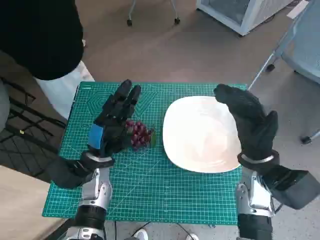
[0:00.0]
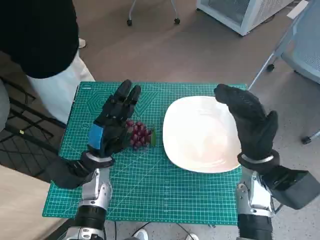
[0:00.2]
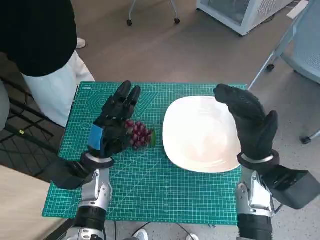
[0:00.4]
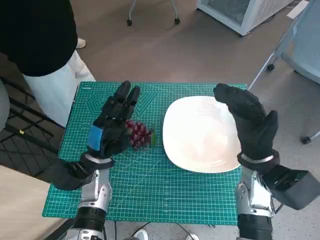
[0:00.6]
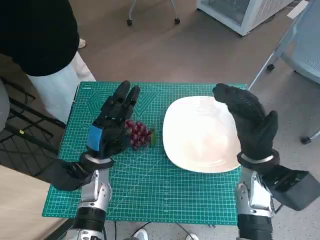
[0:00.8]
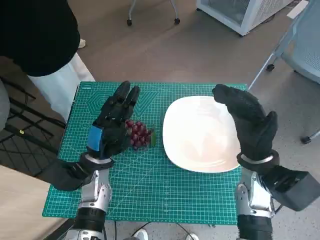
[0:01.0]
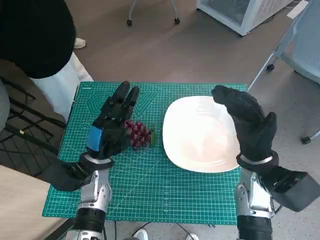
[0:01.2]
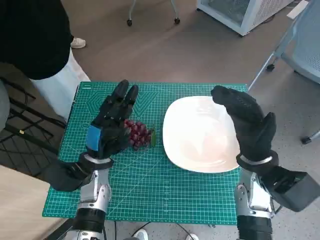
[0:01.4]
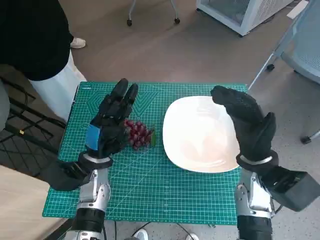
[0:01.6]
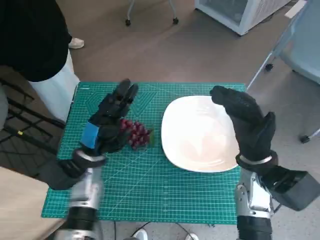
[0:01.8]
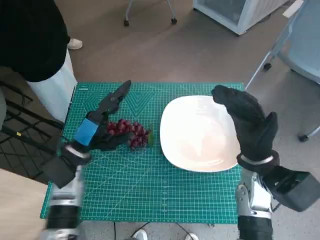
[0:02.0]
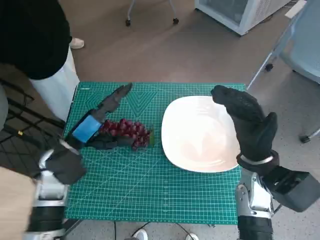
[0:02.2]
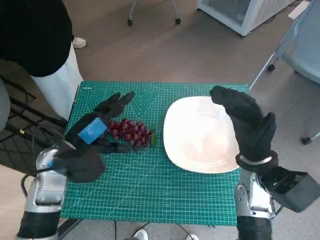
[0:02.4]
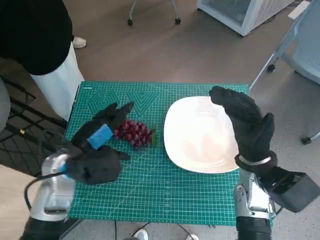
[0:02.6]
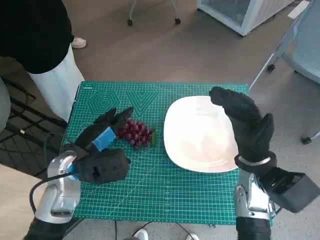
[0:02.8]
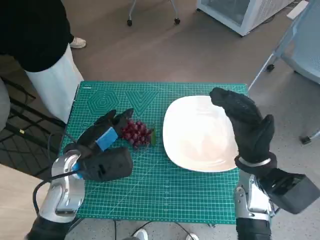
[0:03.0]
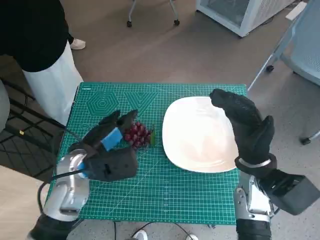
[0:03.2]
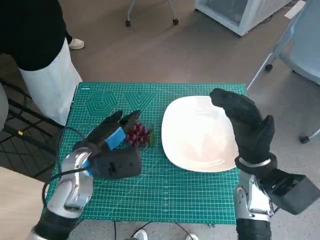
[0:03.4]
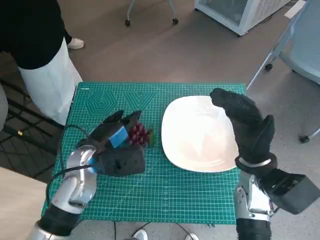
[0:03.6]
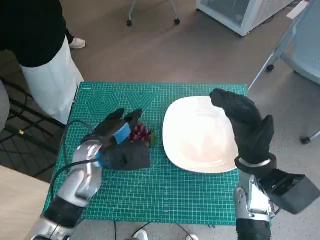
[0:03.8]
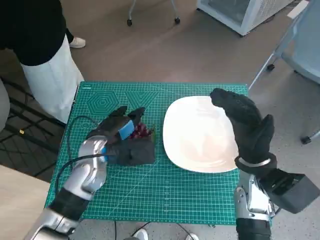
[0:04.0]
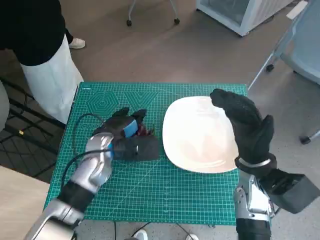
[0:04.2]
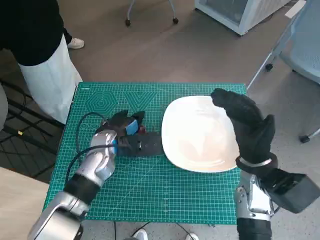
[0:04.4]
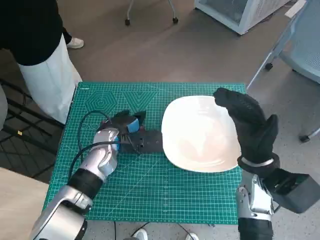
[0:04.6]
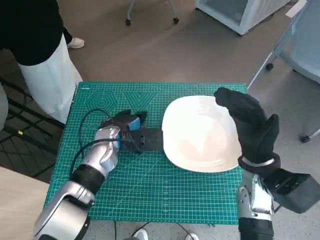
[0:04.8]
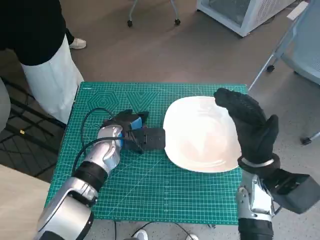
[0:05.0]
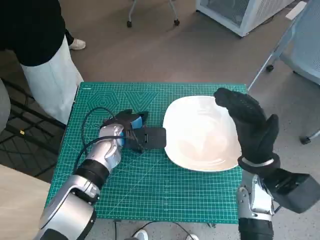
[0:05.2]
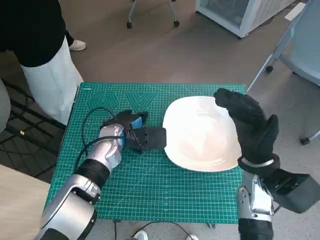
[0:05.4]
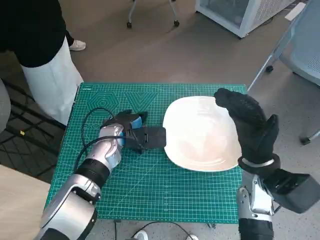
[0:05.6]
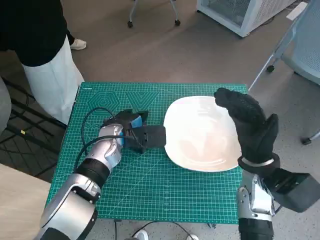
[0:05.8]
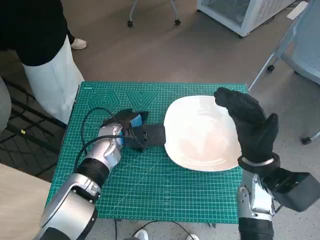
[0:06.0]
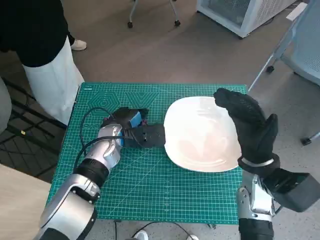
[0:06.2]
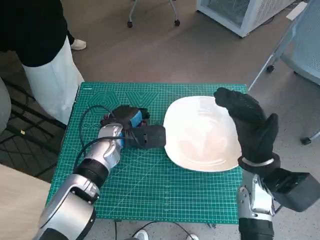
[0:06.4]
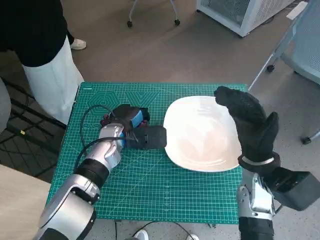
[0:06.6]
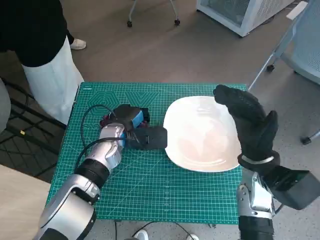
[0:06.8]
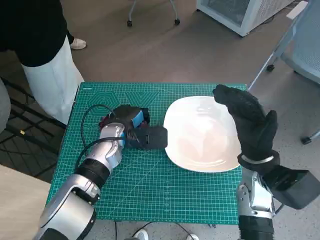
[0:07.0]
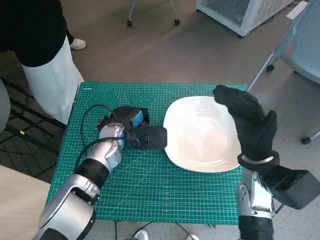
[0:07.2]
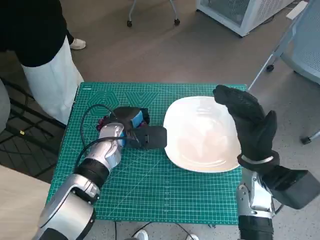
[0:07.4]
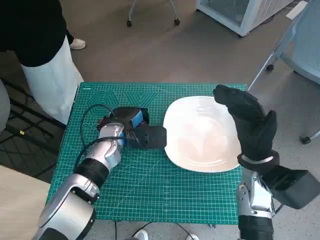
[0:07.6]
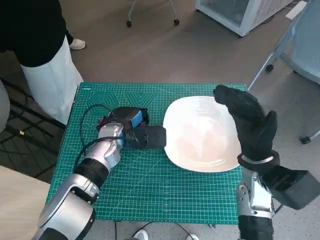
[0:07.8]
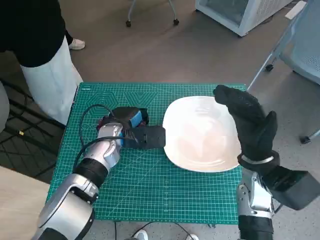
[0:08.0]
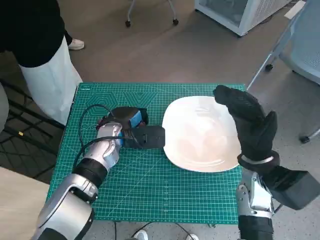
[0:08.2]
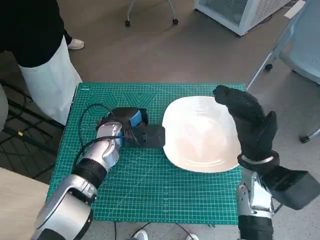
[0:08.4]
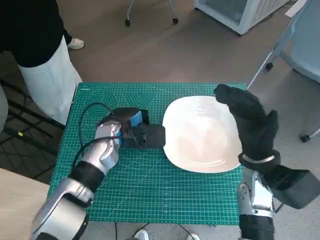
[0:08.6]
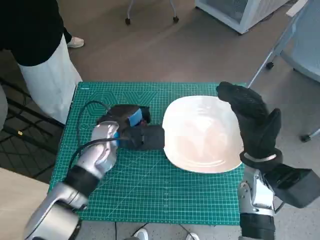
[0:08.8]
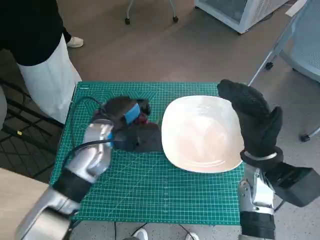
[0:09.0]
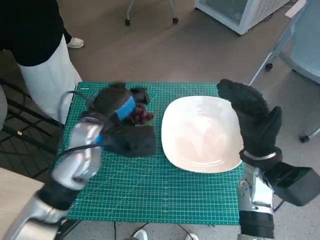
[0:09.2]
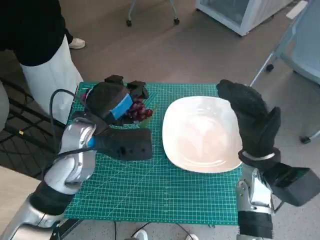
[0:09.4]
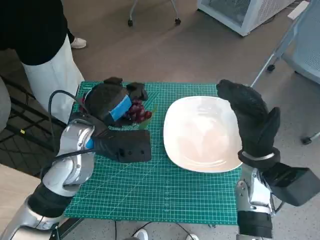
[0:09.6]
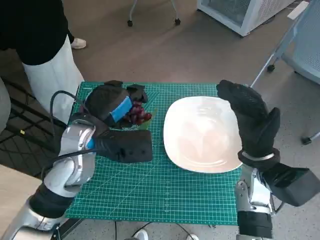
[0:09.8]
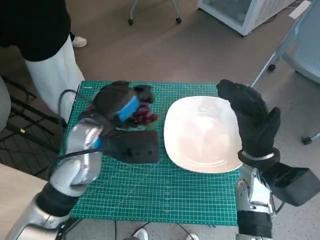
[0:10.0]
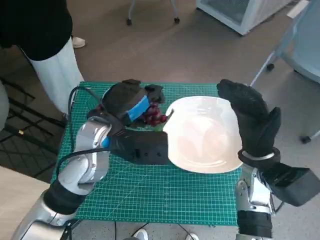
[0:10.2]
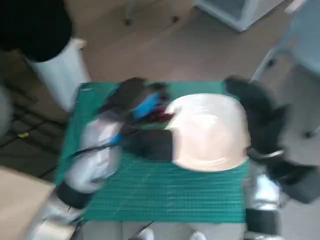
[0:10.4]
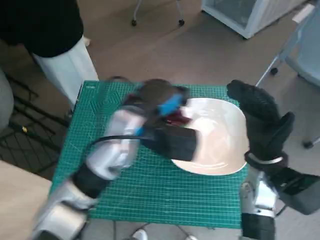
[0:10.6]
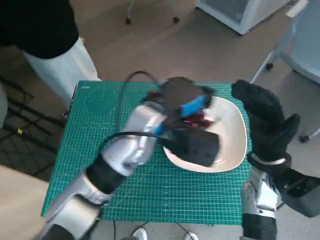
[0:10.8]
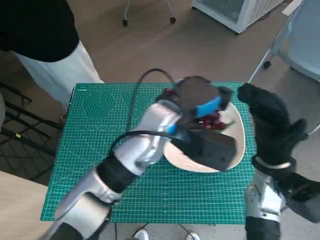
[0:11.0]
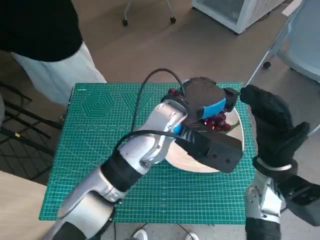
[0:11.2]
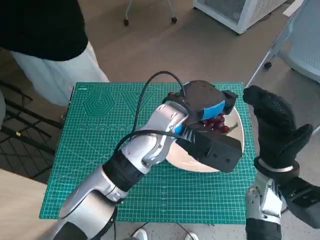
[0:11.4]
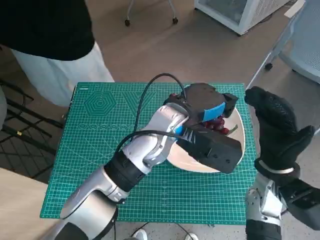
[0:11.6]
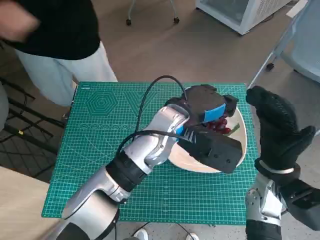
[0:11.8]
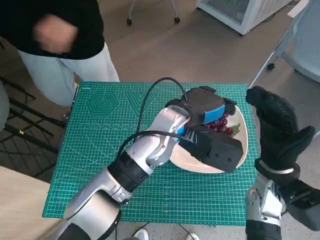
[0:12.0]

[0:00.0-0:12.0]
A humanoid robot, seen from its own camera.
Task of the whole recording: Pick up the grapes and put them on the plate.
Step, 0:00.0 to 0:07.2: Grasp the grapes with left hand.
0:01.6 to 0:03.0: The left hand moves upward, about 5 cm.
0:03.0 to 0:04.4: The left hand is displaced forward by some 5 cm.
0:04.4 to 0:09.0: There are only small adjustments of the hands.
0:09.0 to 0:10.4: The left hand shifts about 5 cm upward.
0:10.4 to 0:12.0: The left hand shifts roughly 10 cm to the right.

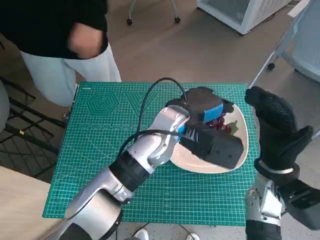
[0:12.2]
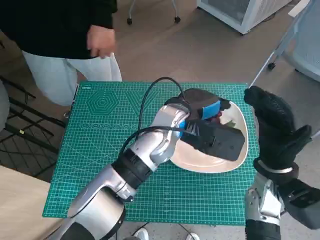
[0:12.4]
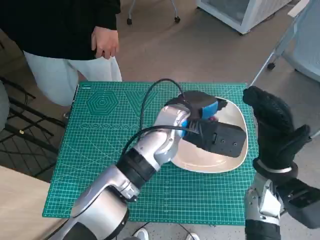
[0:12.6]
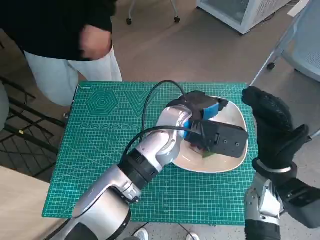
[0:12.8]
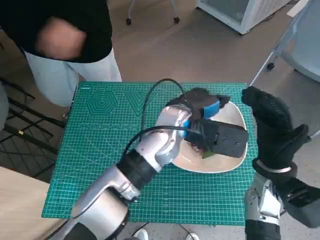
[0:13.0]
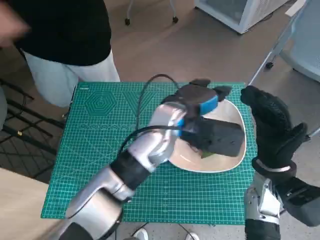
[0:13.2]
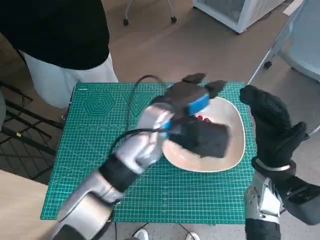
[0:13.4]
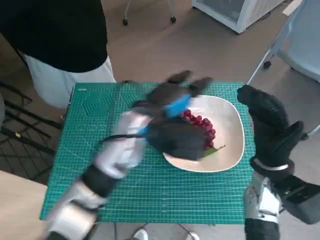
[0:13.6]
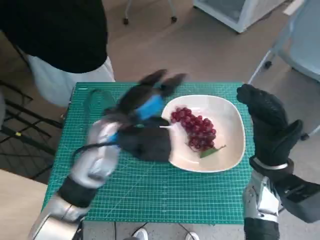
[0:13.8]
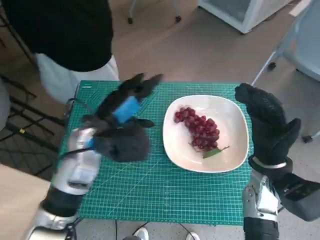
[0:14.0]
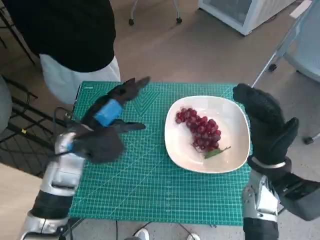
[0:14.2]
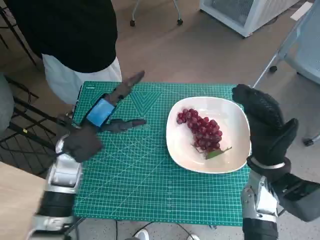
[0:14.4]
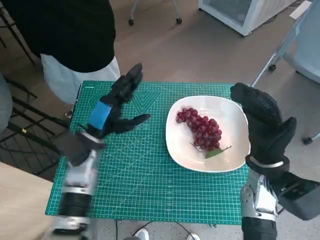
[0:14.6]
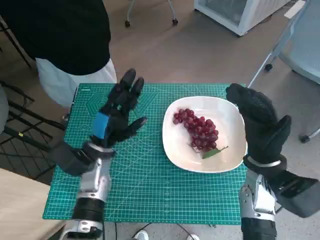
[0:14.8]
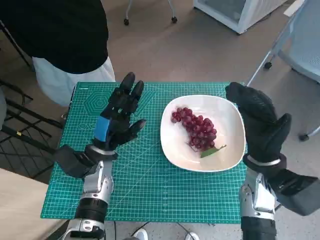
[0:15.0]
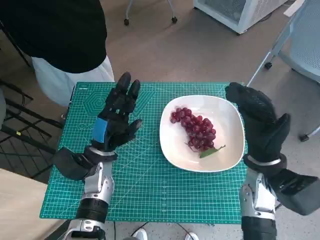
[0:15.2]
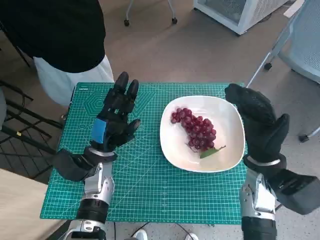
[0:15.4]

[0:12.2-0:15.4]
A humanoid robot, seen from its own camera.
Task of the whole recording: Pick up the grapes and put them on the plate.
0:12.2 to 0:13.8: The left hand heads to the left, covering about 10 cm.
0:13.8 to 0:15.4: The left hand travels downward and to the left by roughly 15 cm.

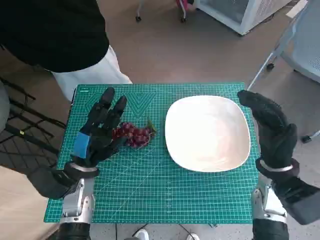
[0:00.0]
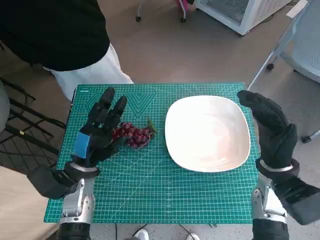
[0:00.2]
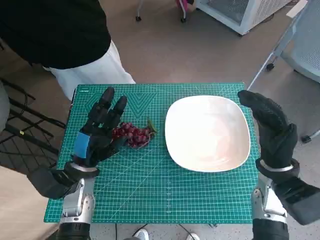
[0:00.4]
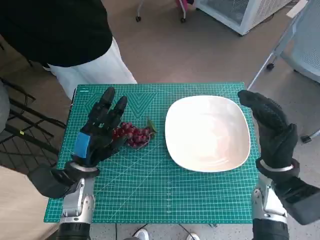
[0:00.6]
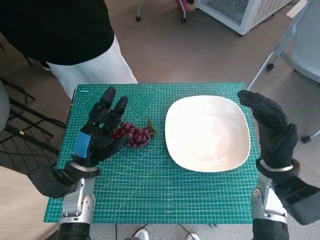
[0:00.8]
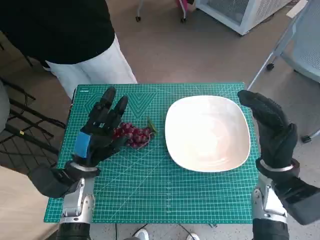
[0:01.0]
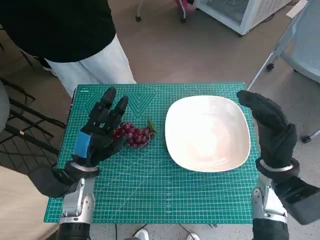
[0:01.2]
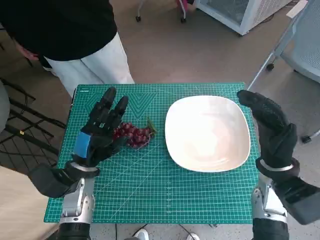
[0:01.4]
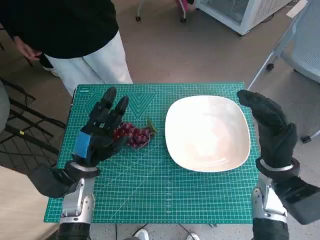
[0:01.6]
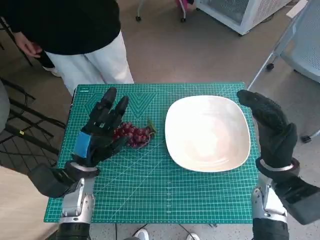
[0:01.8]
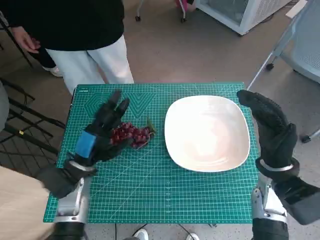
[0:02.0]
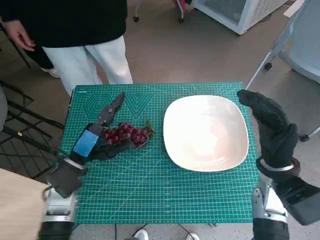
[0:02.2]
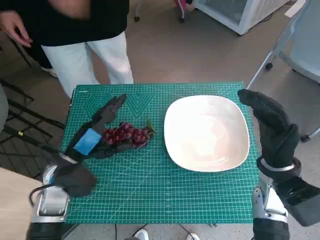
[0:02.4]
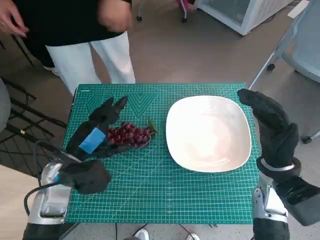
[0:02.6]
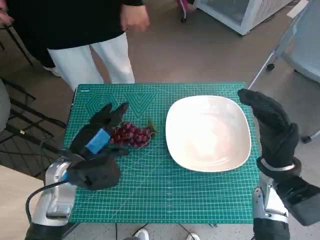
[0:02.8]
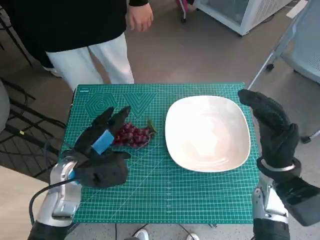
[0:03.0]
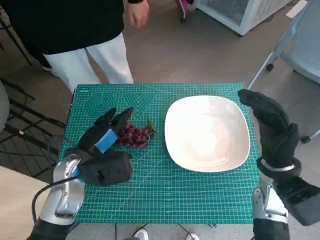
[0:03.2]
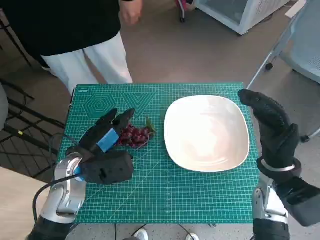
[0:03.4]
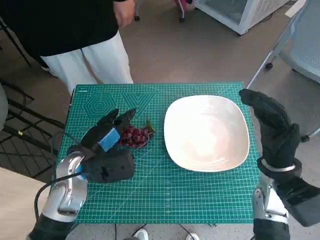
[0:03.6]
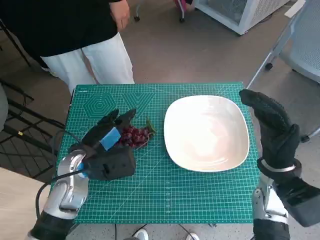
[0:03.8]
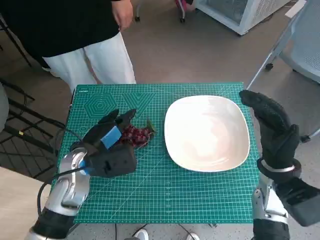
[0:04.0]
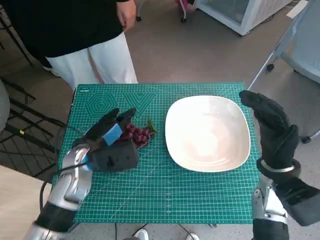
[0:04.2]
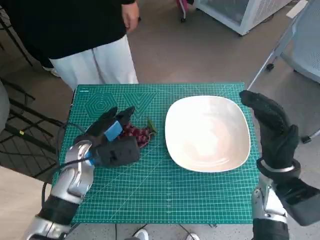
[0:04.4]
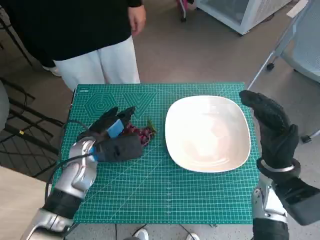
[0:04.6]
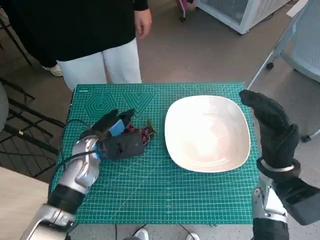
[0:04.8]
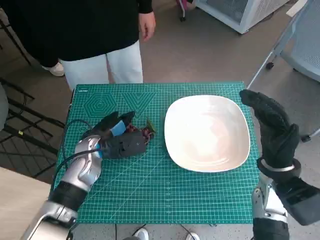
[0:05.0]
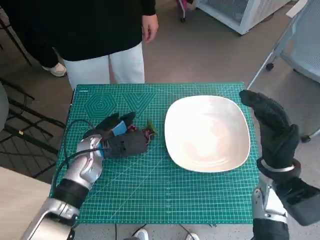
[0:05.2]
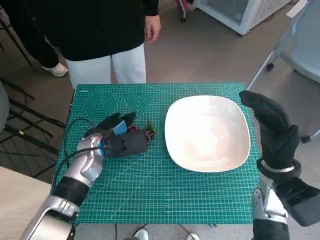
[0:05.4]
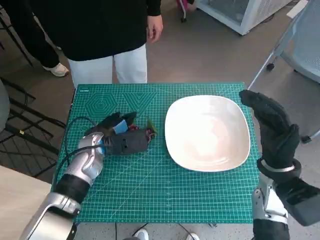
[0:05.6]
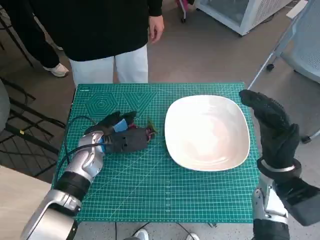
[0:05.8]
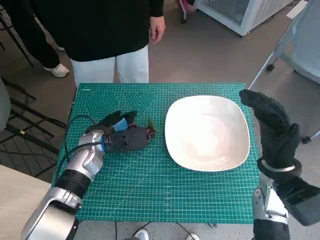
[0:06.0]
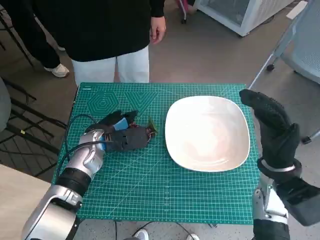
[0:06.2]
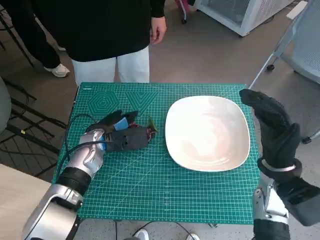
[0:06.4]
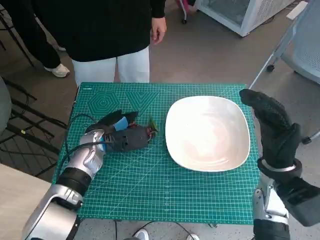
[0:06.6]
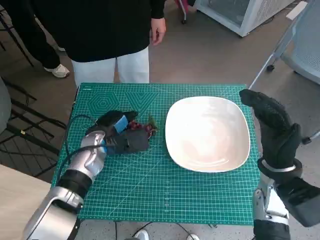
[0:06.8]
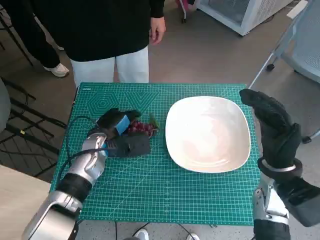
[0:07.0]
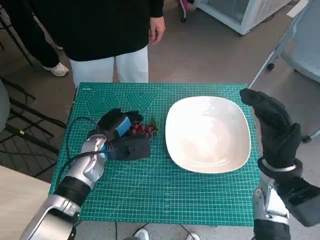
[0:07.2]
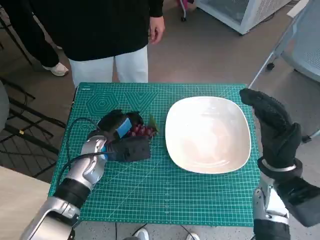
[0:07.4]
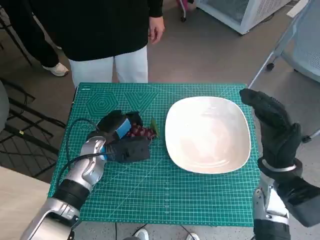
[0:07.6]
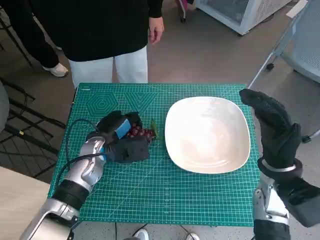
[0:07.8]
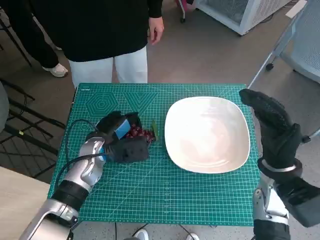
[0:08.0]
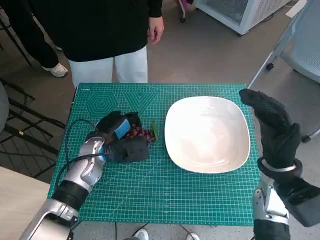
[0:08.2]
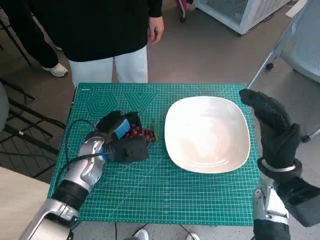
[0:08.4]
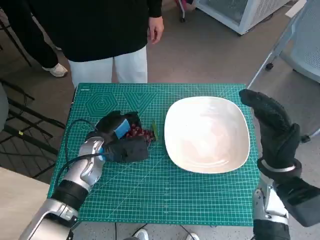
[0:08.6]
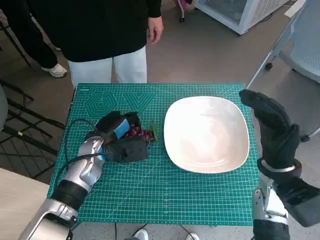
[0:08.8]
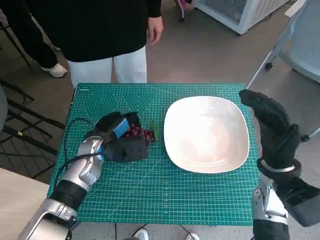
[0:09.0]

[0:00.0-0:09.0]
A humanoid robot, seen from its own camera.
Task of the whole recording: Pick up the grapes and put them on the plate.
Step, 0:00.0 to 0:08.2: Grasp the grapes with left hand.
0:03.0 to 0:04.4: The hands make only small movements.
0:04.4 to 0:07.6: The hands stay close to where they were, moving slightly.
0:07.6 to 0:09.0: The two hands keep their place.
